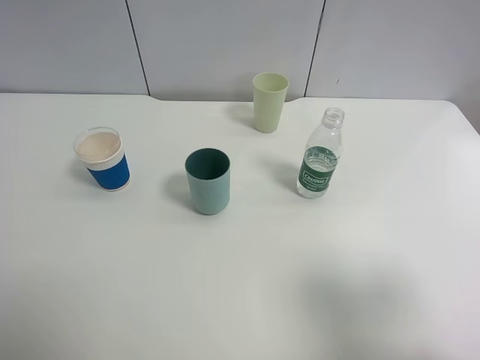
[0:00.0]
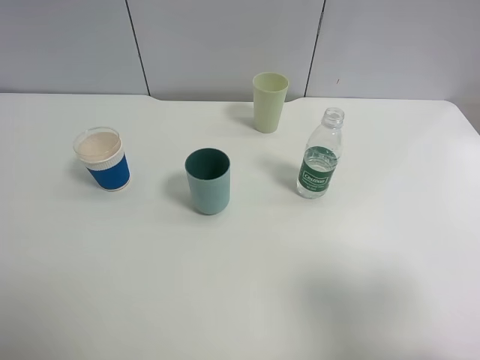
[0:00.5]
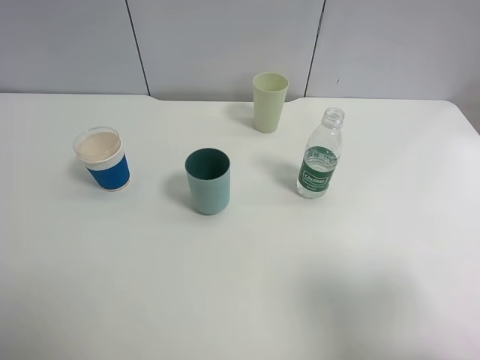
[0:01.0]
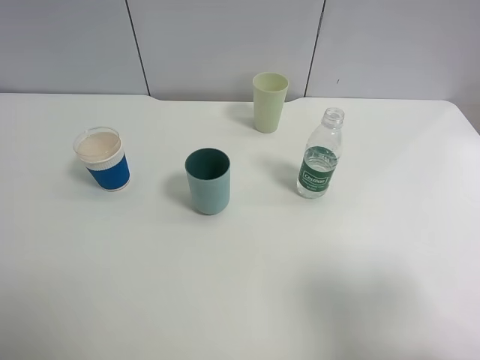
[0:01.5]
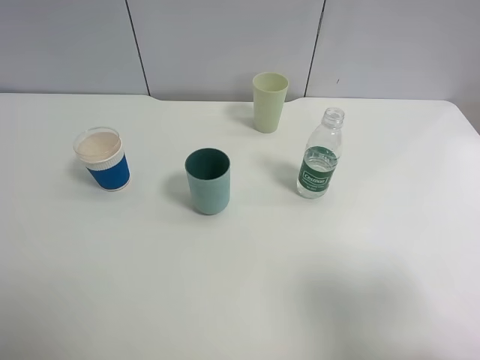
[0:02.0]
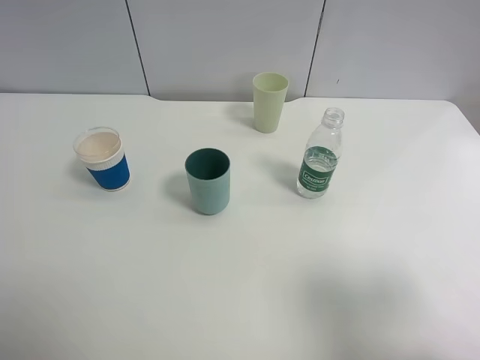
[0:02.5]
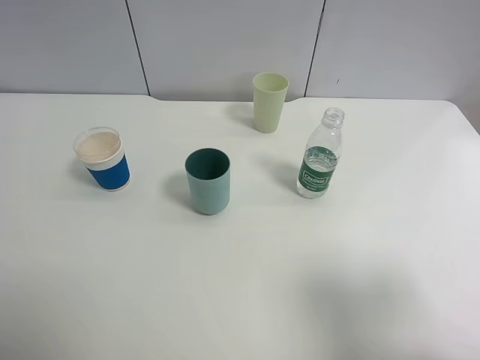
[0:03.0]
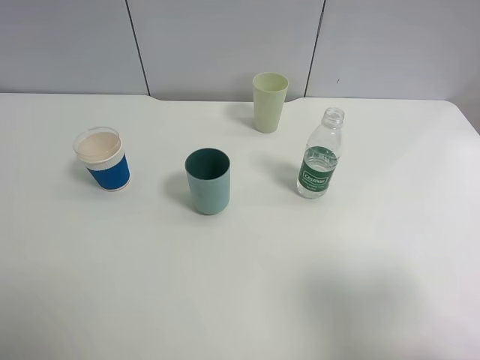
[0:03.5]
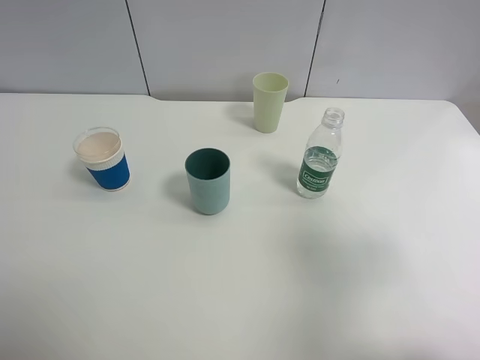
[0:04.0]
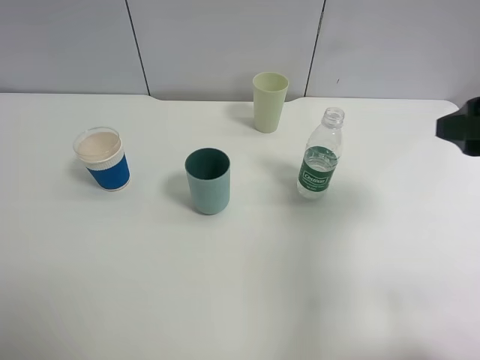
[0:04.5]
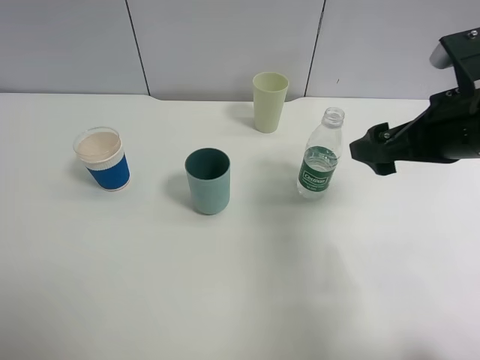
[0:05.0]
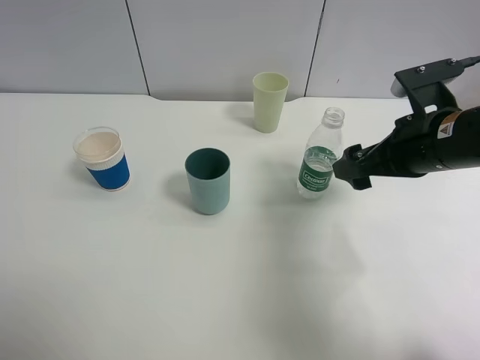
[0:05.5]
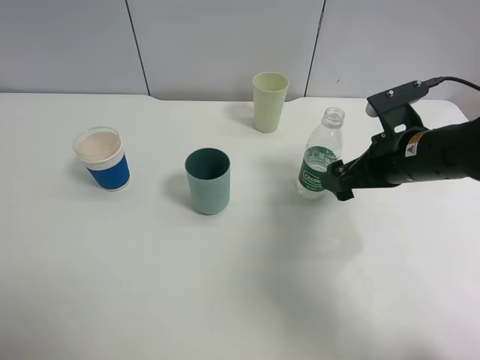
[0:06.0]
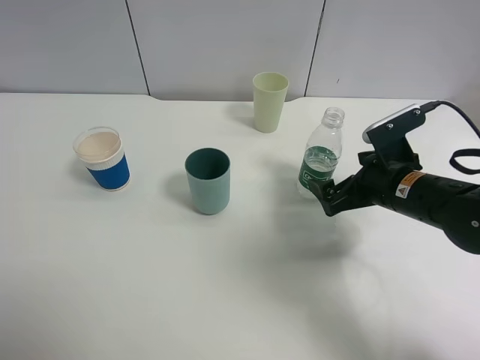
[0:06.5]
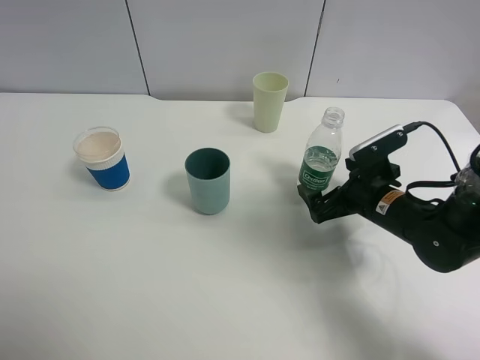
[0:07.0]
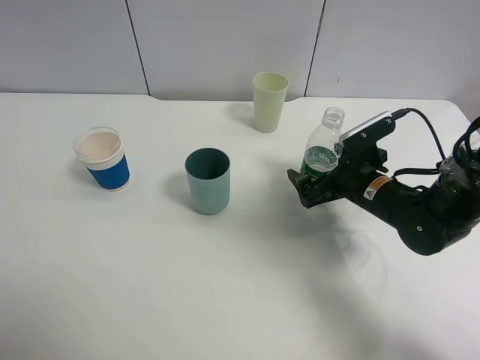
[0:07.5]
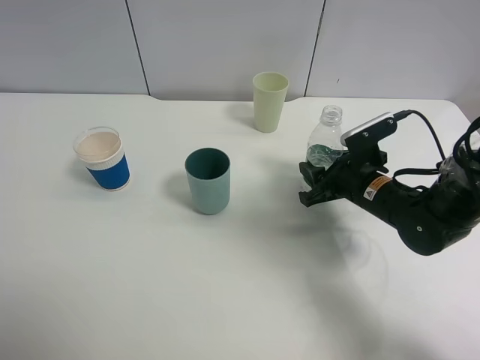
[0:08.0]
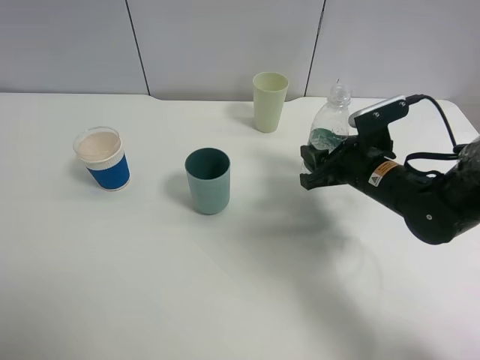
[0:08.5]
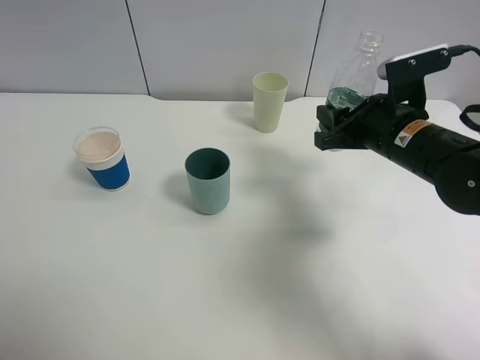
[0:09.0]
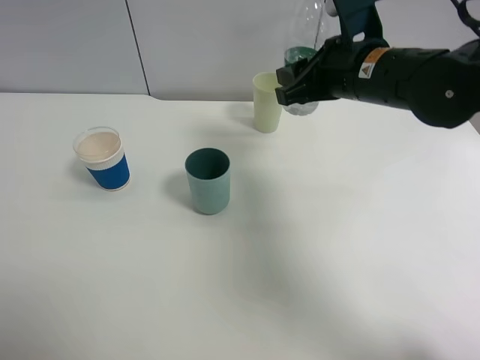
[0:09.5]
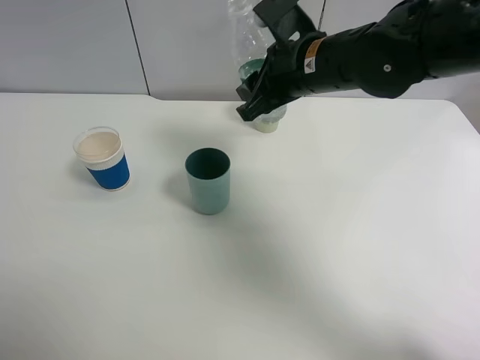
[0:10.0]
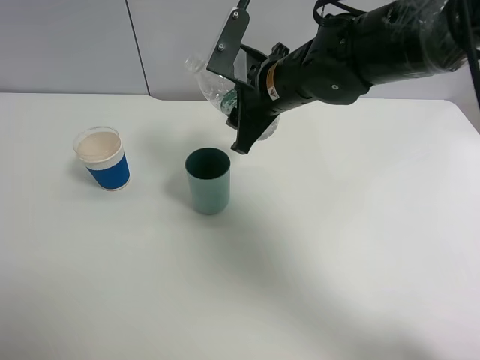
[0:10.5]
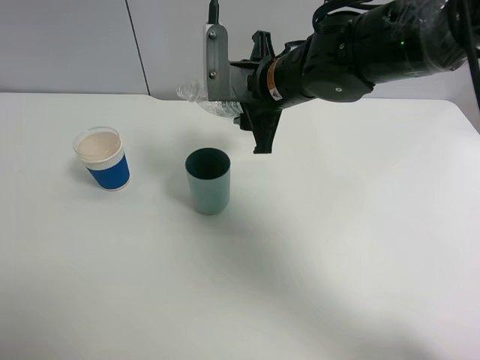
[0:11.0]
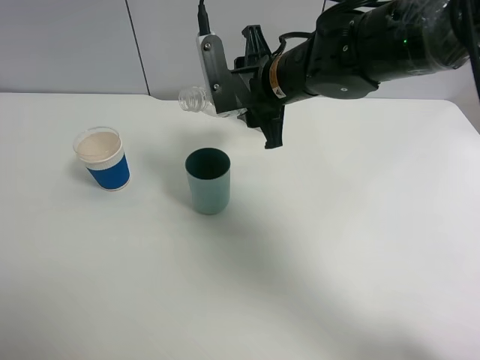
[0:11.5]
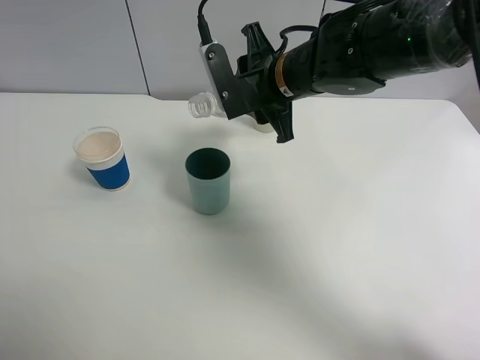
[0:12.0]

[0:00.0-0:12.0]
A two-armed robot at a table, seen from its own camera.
Task of the whole recording: use a clamp to hold the bottle of the drink, pour the beverage into a random cup, then clamp the cup containing the drink and pour the drink into another random cup.
Step, 0:00.0 to 0:08.5: Pick up the water bottle with right gripper.
0:00.0 to 0:02.0: The two grippers keep their place.
0:02.0 to 0:04.0: The right gripper shifts approximately 5 cm forward.
0:04.0 to 0:06.0: The right gripper moves forward, downward and to the left, approximately 25 cm.
0:06.0 to 0:08.0: The right gripper moves downward, approximately 10 cm, and closes its fingers.
0:08.0 to 0:10.0: The right gripper heads upward and to the left, covering about 20 cm.

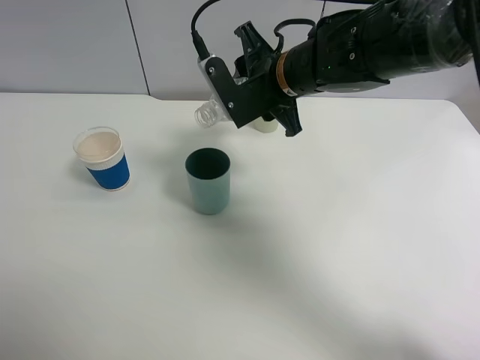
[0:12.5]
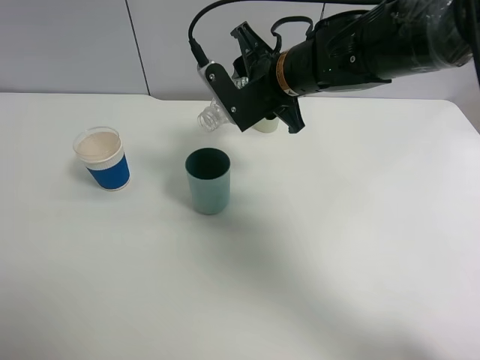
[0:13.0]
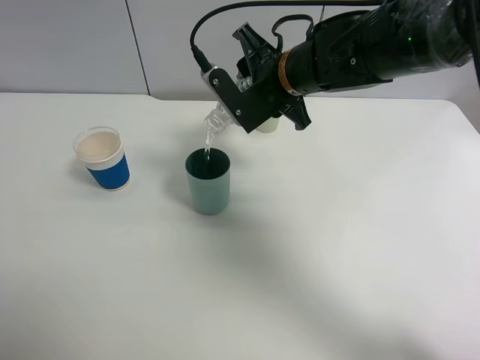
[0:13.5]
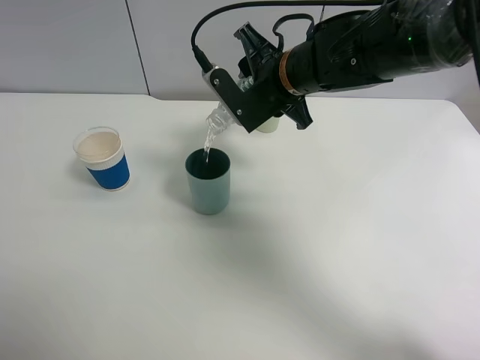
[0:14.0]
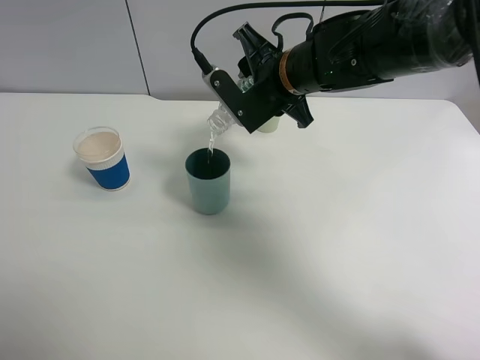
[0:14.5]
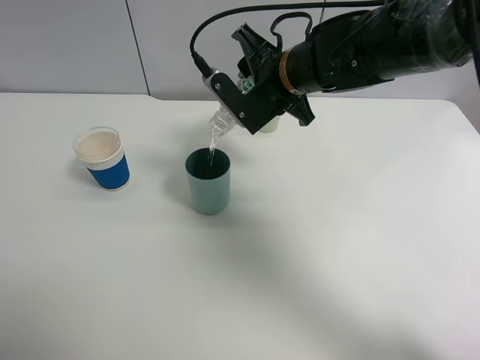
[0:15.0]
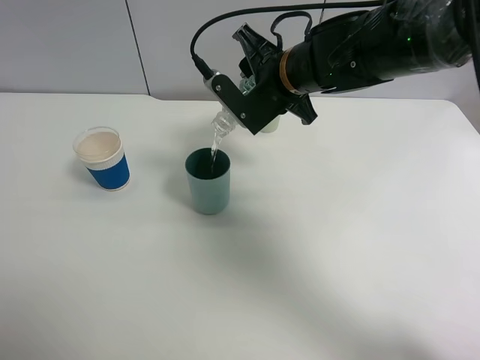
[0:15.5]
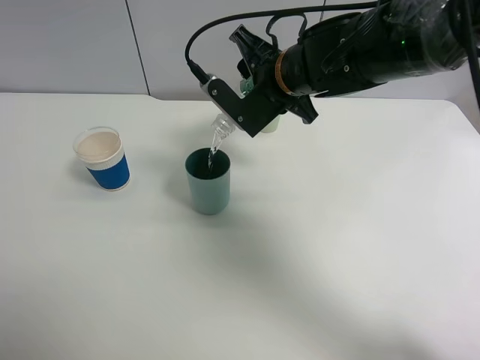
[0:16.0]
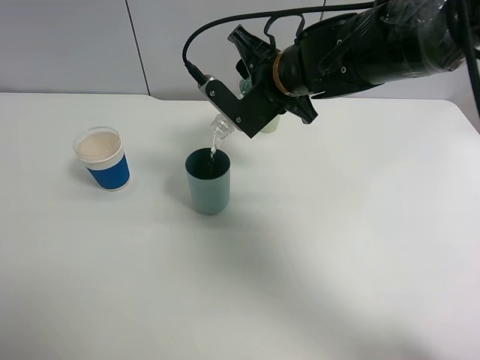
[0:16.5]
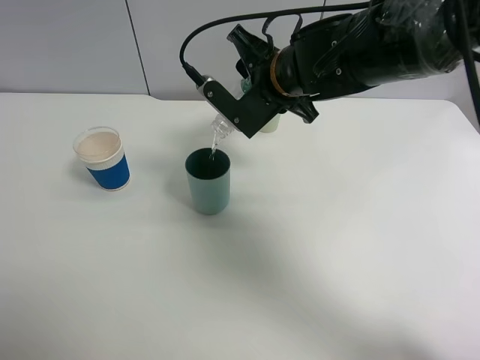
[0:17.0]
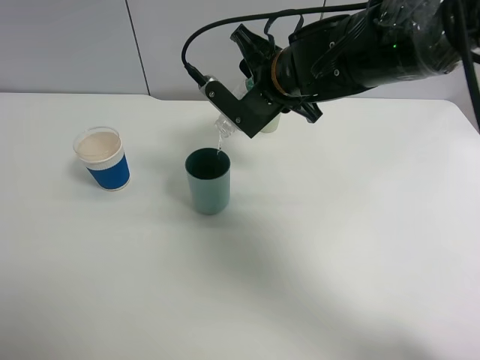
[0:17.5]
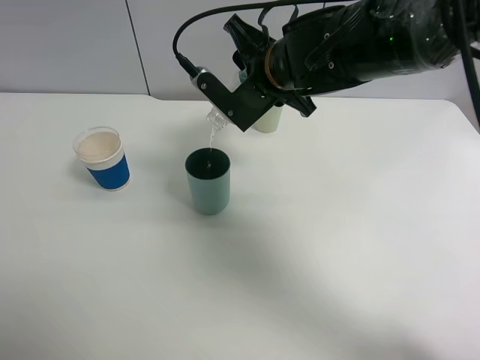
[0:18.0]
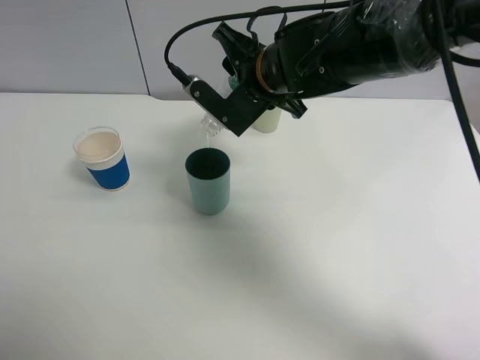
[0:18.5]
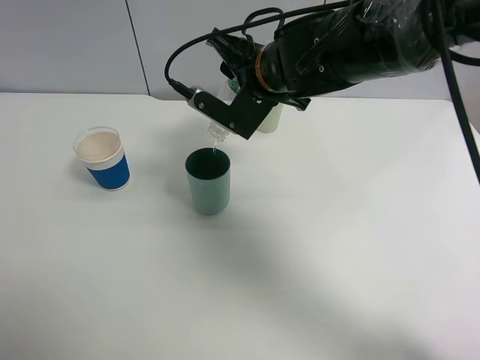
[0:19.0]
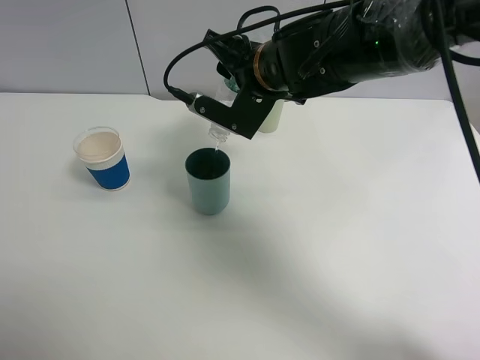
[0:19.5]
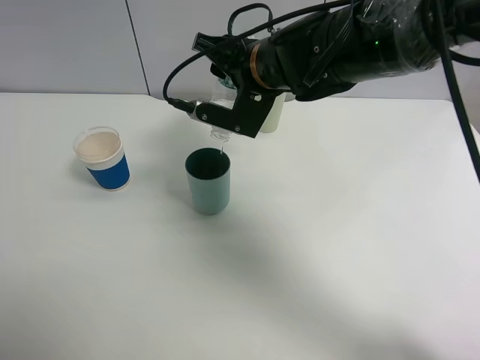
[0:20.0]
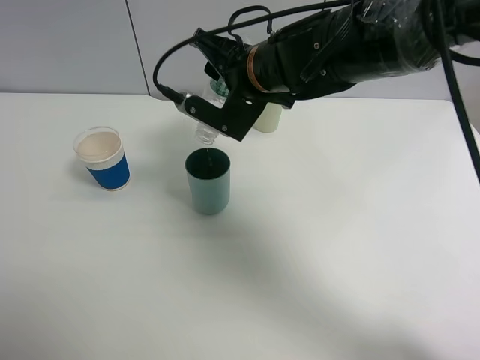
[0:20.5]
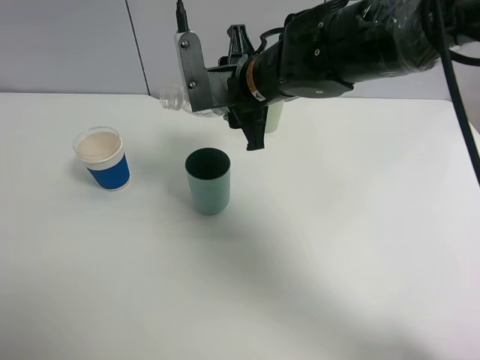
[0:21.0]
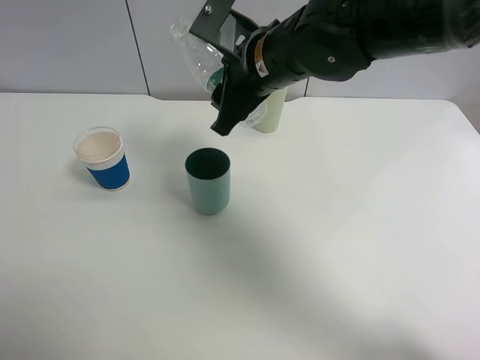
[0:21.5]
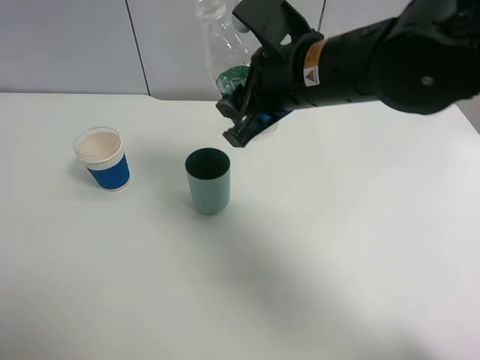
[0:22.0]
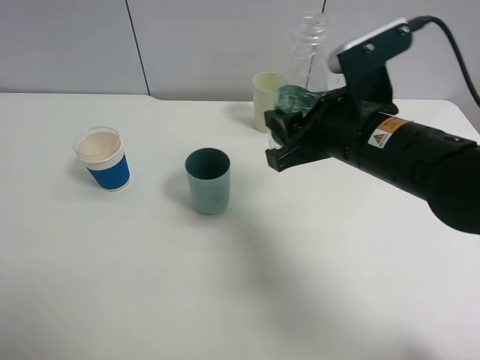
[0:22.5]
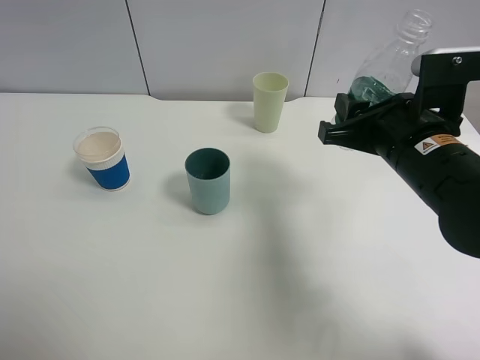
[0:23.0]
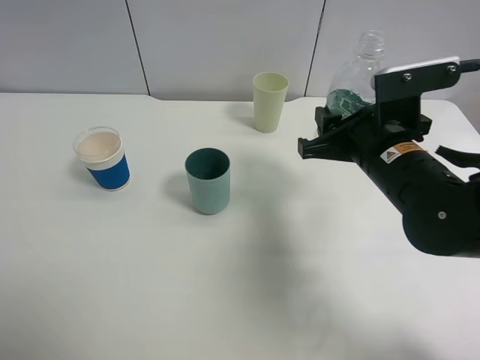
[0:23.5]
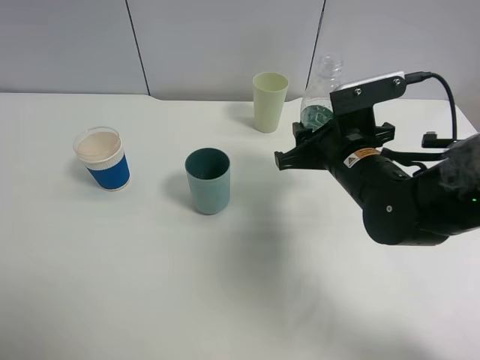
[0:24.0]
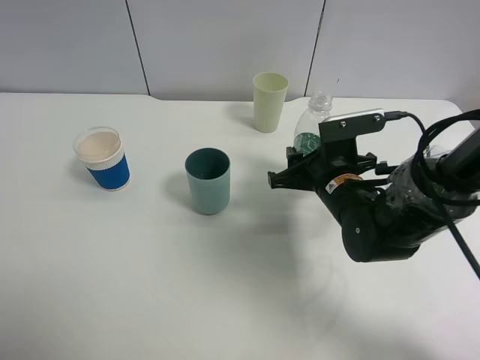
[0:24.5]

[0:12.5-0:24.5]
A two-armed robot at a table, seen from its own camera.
Task of the whole recording: use a clamp to hold the bottle of the drink, pour the beverage into a random cup, then clamp the cup containing the drink and pour the drink into another random cup.
Step, 0:12.5 to 0:21.0: Pour water into the blue plastic cup with right gripper.
0:12.5 to 0:16.5: The grippers move only a little.
0:16.5 to 0:18.5: The grippers make only small movements.
0:20.5 to 0:22.5: The right gripper shifts approximately 15 cm backward and to the right.
0:22.5 to 0:24.5: The right gripper is displaced downward by about 10 cm.

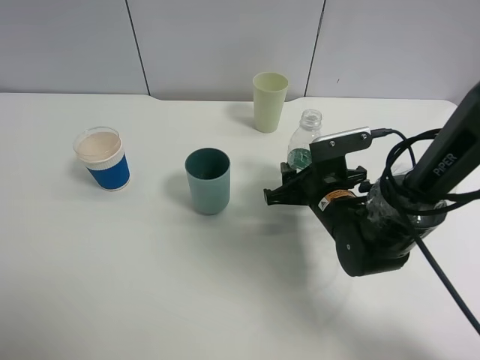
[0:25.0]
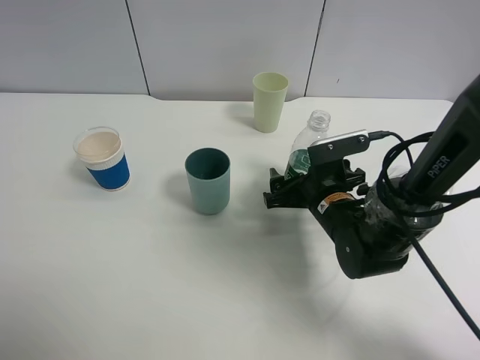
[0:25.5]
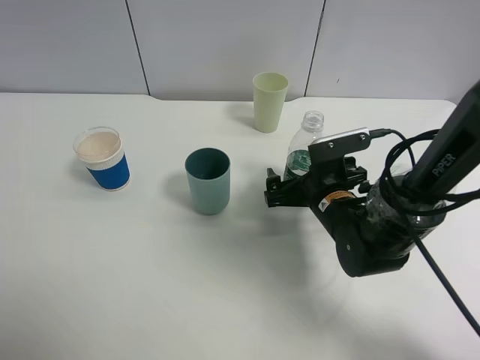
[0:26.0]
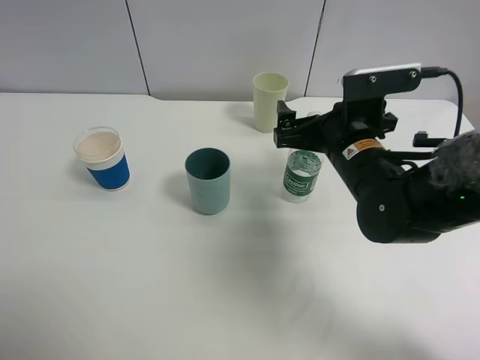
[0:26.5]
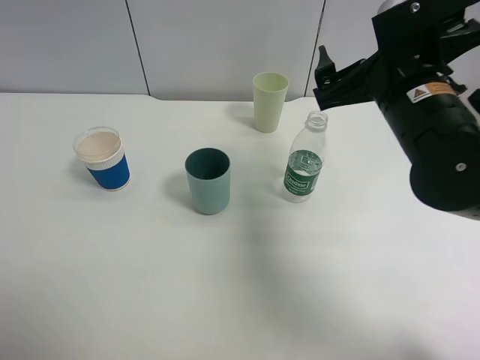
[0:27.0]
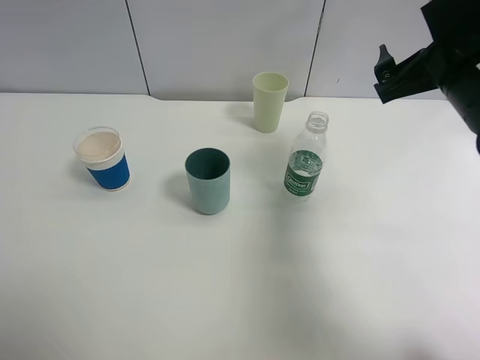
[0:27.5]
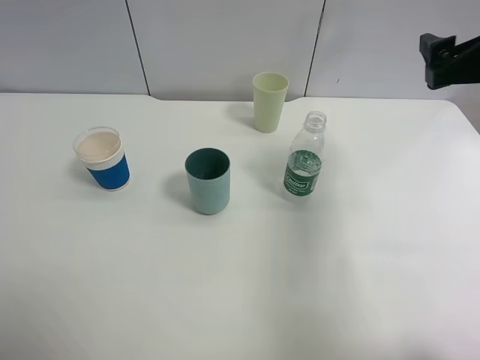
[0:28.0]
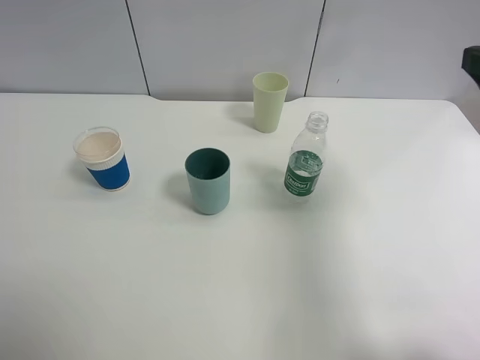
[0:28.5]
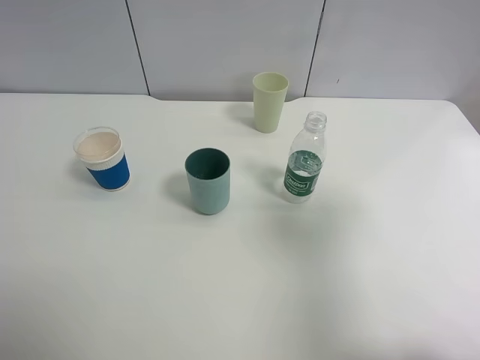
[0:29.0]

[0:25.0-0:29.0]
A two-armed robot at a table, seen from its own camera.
Task of the whole recording: use a clamp to hold the bottle of the drink, pour the beverage into a random cup, then clamp the cup containing the drink and pour the drink into another random cup.
0:25.0 to 0:27.0: The right gripper heads upward, covering approximately 15 cm, and opens.
0:27.0 to 0:29.0: The right gripper travels backward, to the right and upward by approximately 20 cm.
